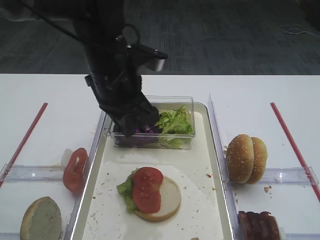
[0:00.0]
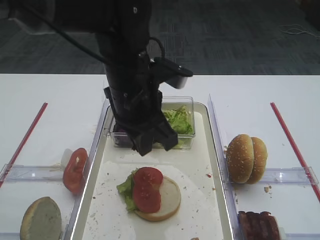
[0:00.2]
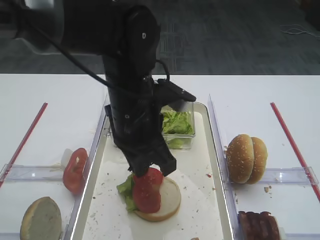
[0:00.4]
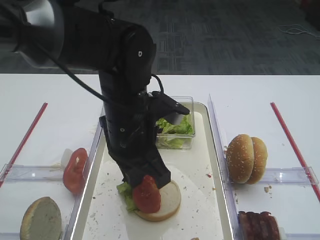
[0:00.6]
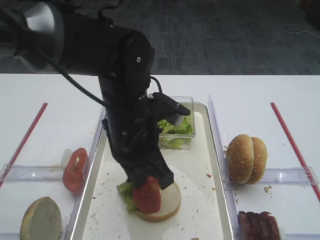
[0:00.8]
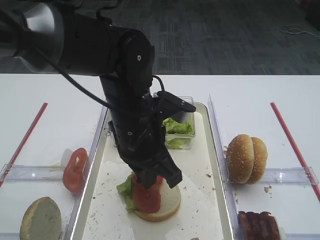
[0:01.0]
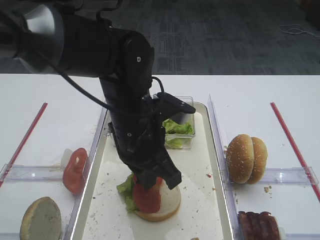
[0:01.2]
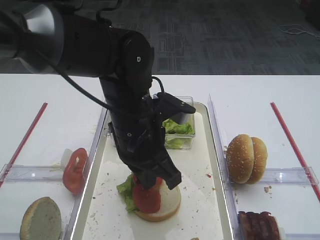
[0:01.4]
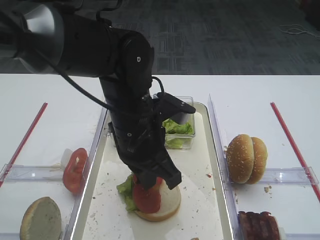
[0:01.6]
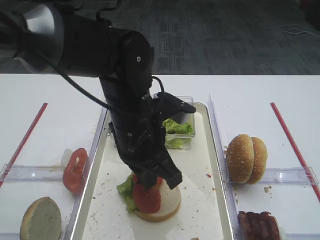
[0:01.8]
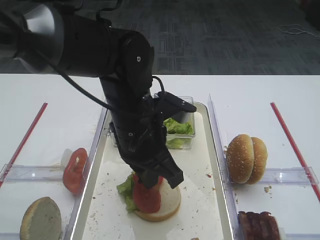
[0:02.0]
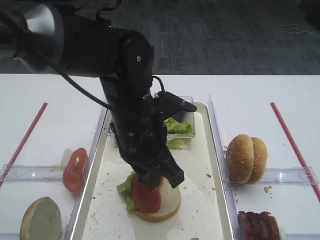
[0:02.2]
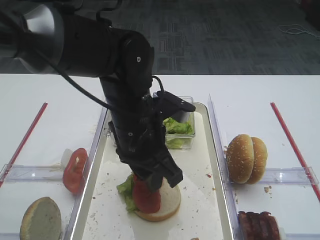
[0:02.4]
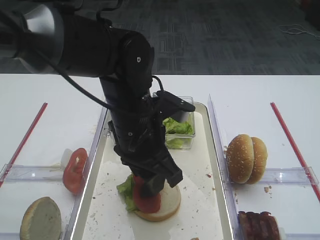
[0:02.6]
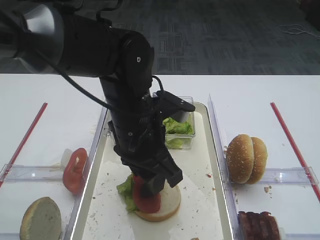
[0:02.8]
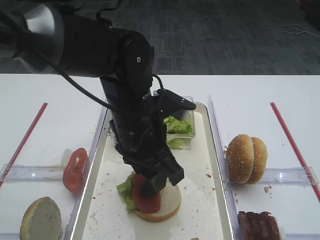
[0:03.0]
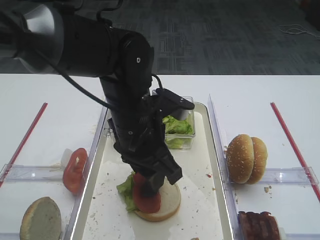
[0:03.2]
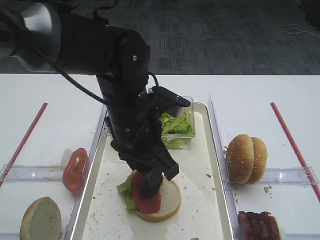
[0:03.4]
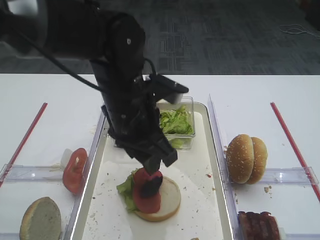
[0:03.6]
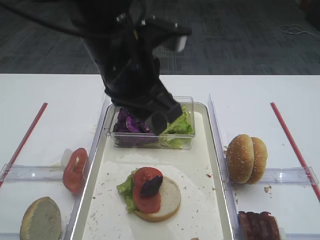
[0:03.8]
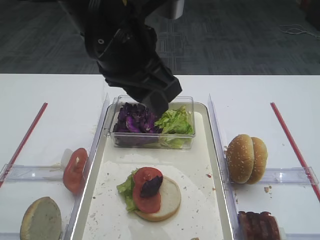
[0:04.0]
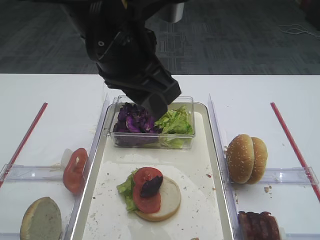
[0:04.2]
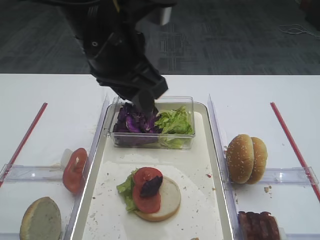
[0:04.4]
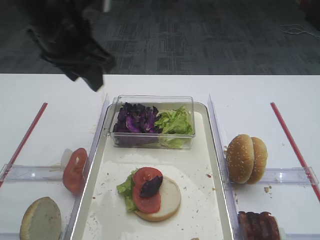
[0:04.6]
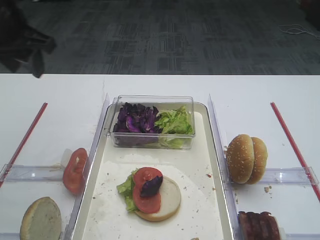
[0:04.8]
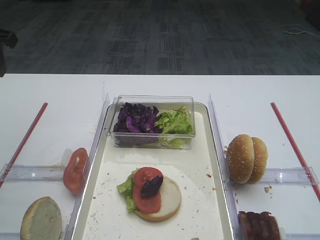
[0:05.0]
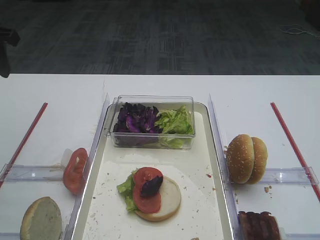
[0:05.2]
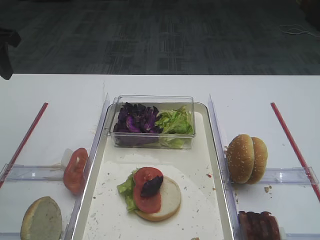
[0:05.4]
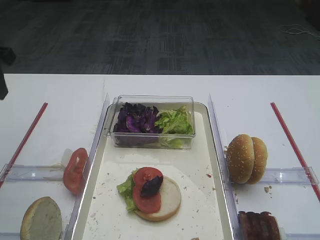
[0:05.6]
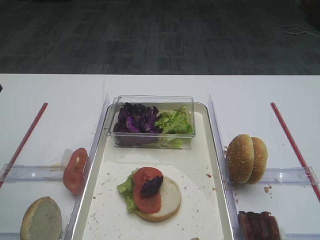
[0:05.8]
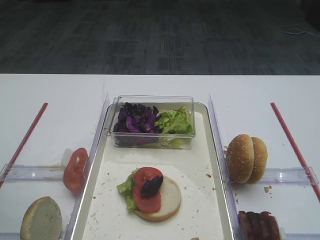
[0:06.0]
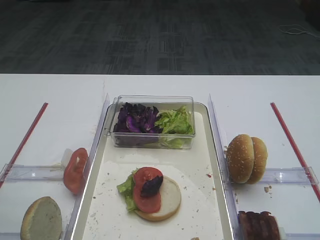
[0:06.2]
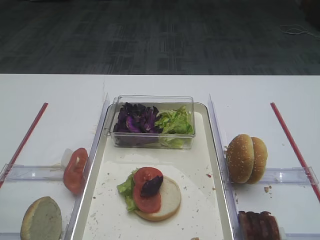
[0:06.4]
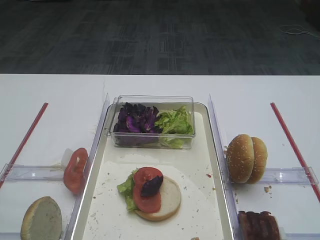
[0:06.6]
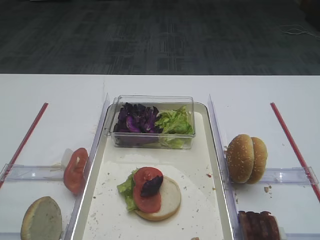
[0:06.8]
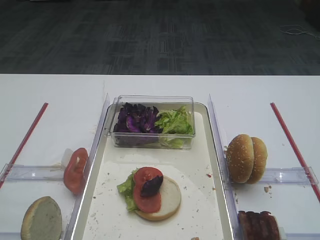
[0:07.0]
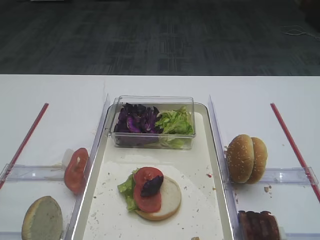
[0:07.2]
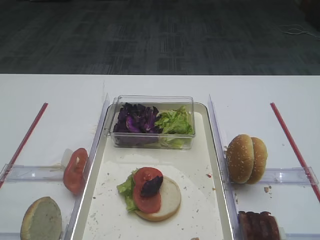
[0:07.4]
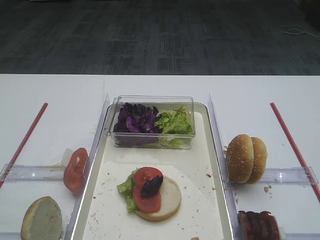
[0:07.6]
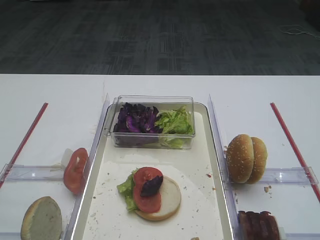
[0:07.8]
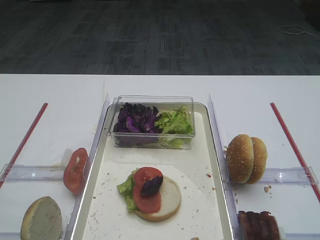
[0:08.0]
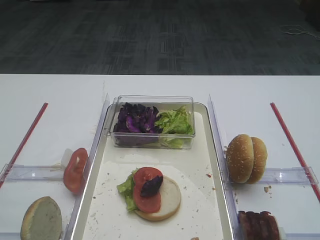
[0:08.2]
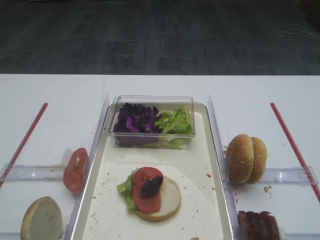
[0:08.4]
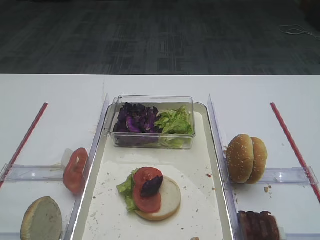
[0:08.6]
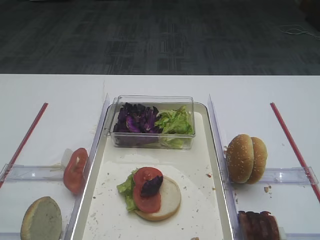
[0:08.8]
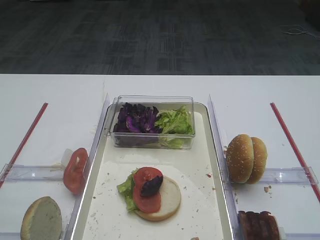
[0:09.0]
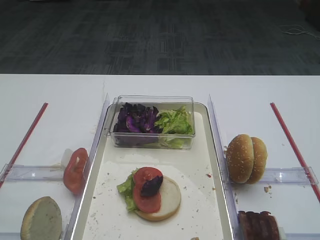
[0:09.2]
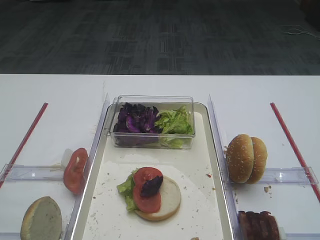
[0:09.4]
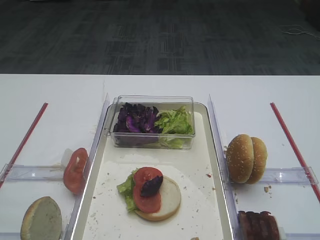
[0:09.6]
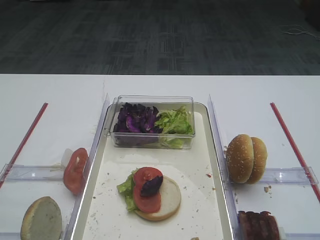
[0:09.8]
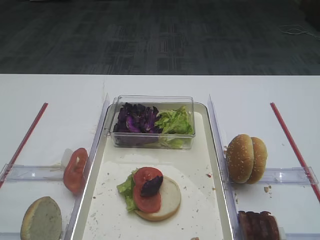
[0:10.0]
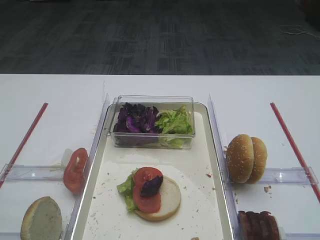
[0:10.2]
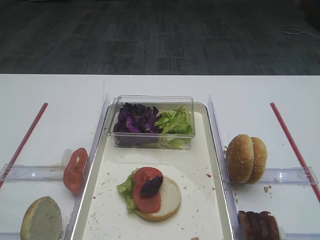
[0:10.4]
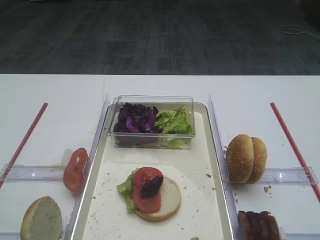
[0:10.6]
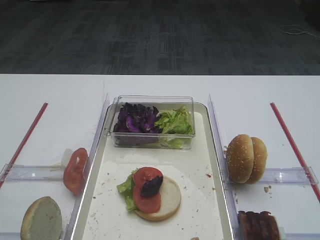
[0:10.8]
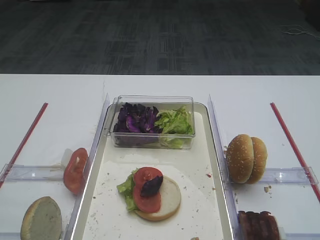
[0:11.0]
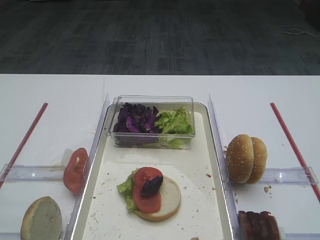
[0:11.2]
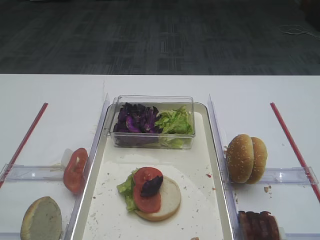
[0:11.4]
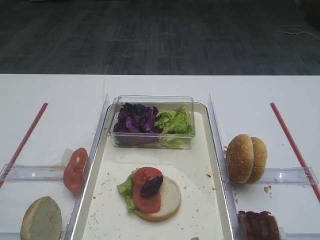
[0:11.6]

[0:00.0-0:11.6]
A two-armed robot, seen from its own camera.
Step, 0:00.0 to 0:03.6: Place the purple cabbage on the tomato slice with the left gripper.
0:00.0 to 0:01.4: The left gripper goes some 5 cm backward and downward.
0:01.4 to 0:02.8: The left gripper opens its fingers.
0:02.8 to 0:04.4: The left gripper goes about 10 cm upward.
0:04.4 to 0:05.8: The left gripper heads to the left, covering about 25 cm.
0:05.8 to 0:07.2: The left gripper goes some 30 cm backward.
0:07.2 to 0:11.6: Both grippers stay about where they are.

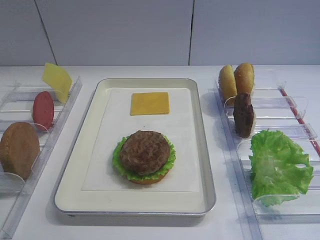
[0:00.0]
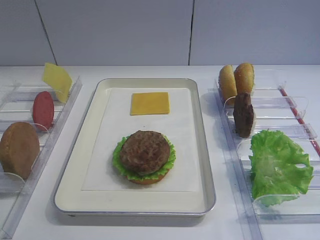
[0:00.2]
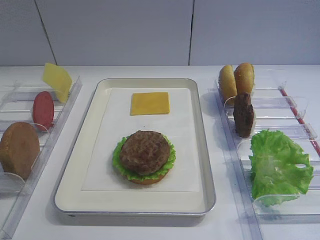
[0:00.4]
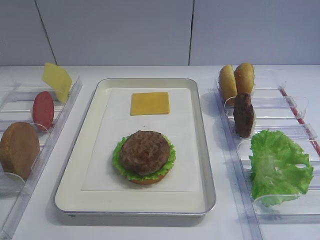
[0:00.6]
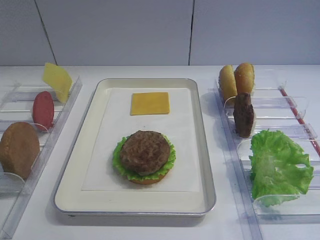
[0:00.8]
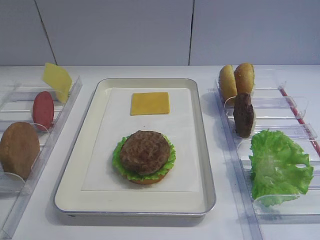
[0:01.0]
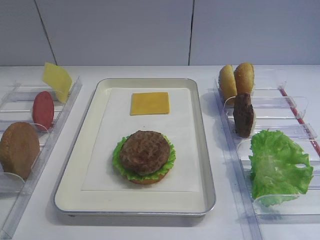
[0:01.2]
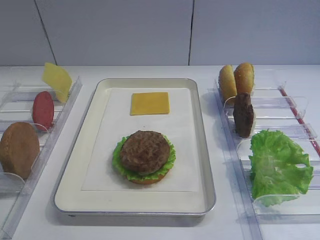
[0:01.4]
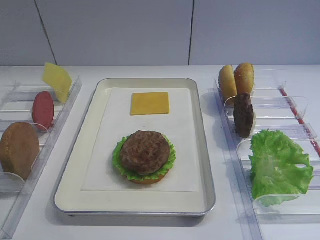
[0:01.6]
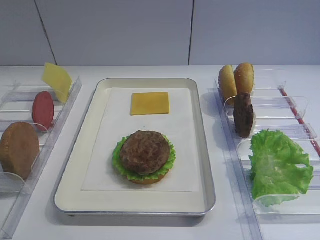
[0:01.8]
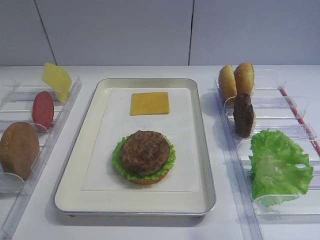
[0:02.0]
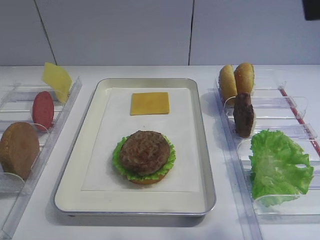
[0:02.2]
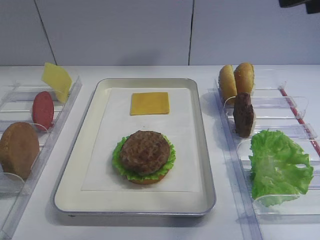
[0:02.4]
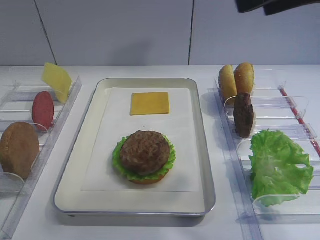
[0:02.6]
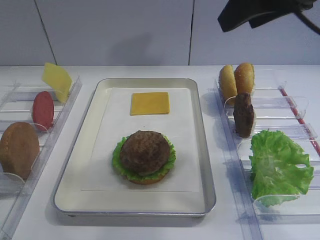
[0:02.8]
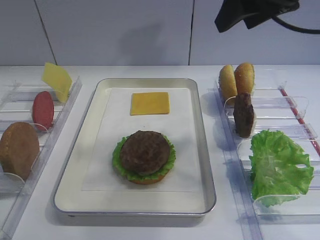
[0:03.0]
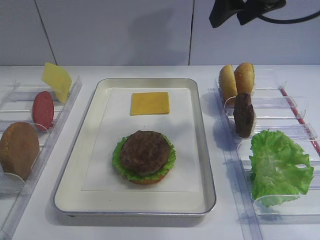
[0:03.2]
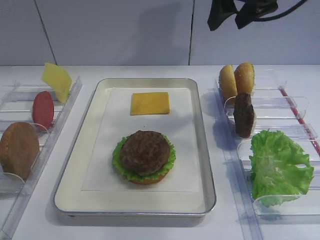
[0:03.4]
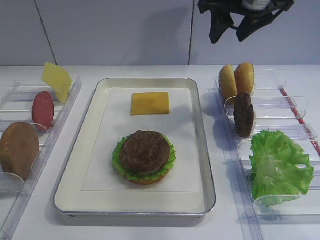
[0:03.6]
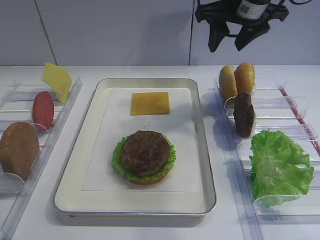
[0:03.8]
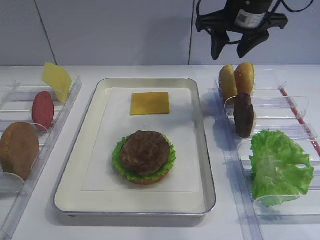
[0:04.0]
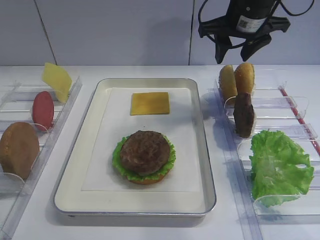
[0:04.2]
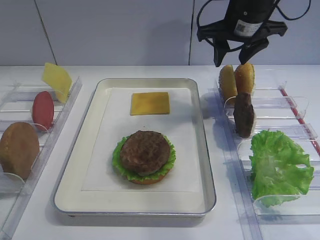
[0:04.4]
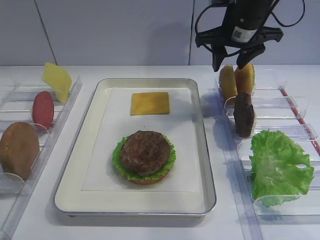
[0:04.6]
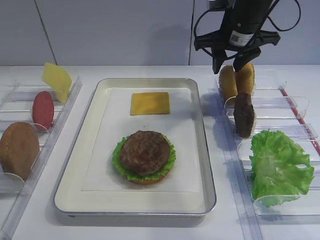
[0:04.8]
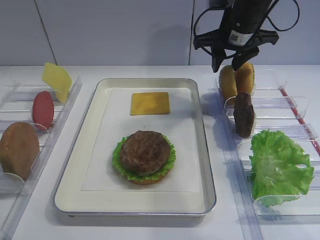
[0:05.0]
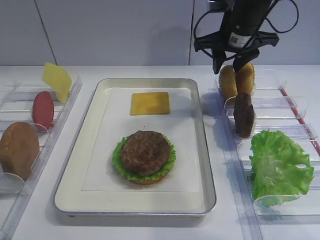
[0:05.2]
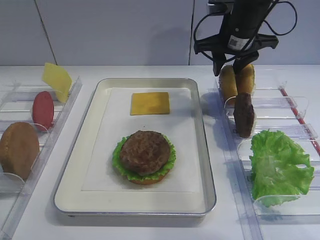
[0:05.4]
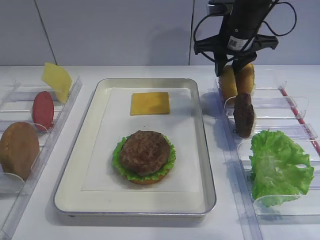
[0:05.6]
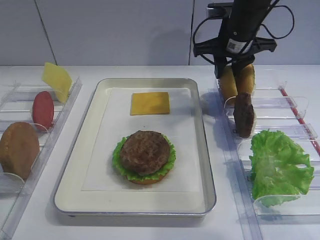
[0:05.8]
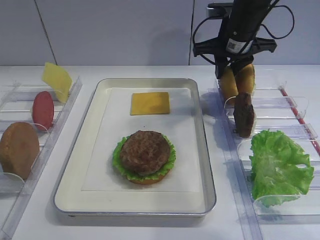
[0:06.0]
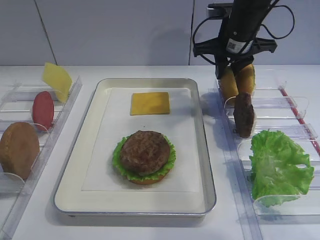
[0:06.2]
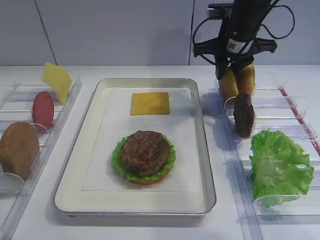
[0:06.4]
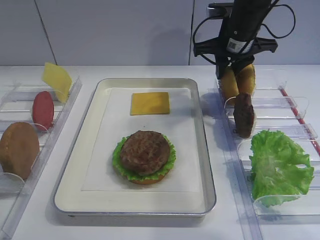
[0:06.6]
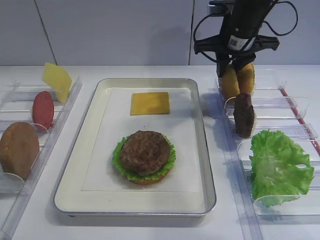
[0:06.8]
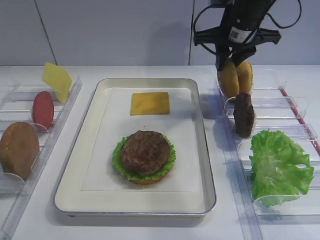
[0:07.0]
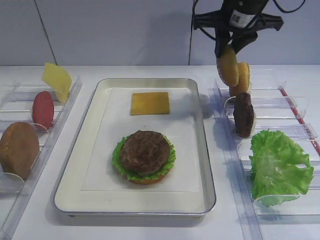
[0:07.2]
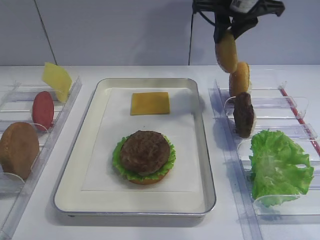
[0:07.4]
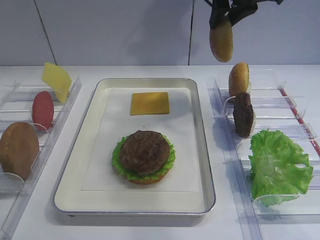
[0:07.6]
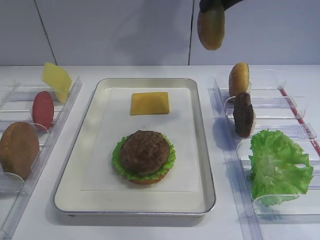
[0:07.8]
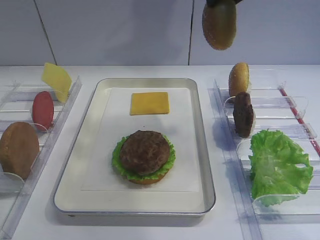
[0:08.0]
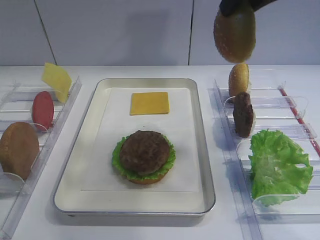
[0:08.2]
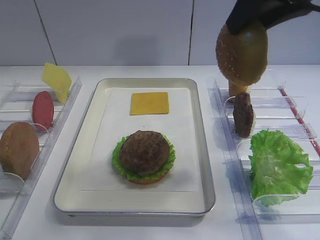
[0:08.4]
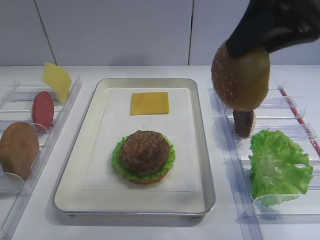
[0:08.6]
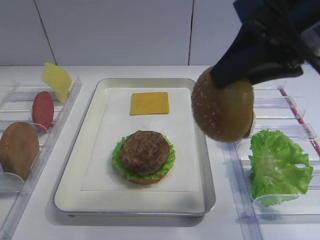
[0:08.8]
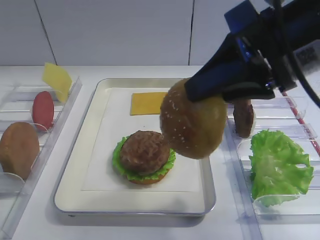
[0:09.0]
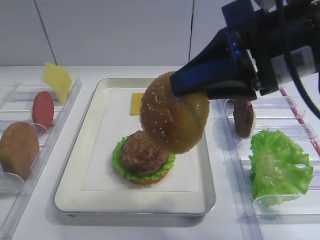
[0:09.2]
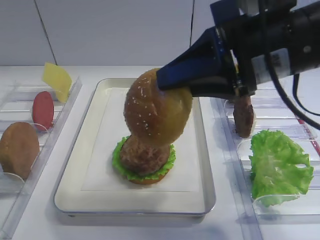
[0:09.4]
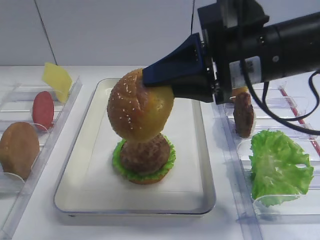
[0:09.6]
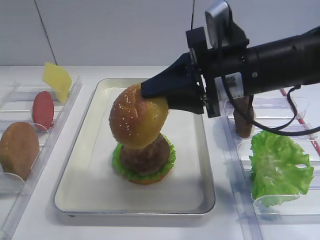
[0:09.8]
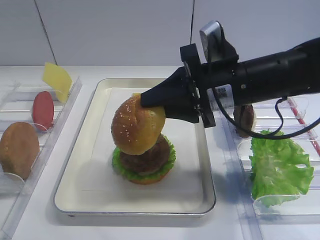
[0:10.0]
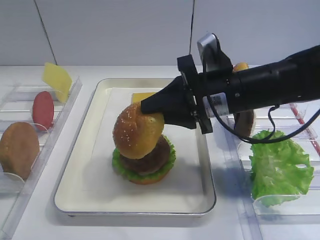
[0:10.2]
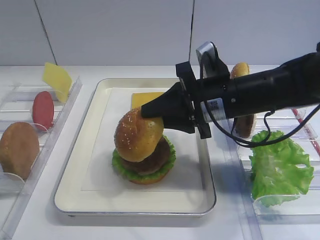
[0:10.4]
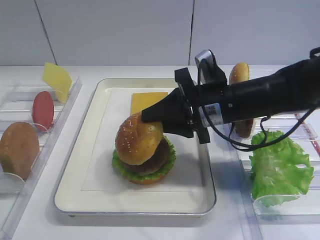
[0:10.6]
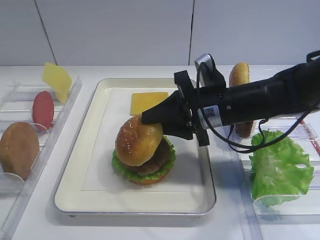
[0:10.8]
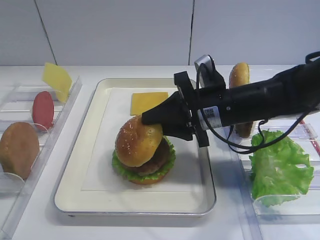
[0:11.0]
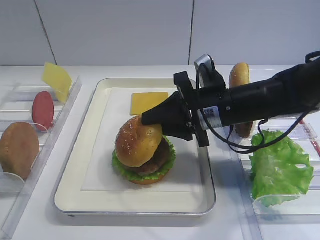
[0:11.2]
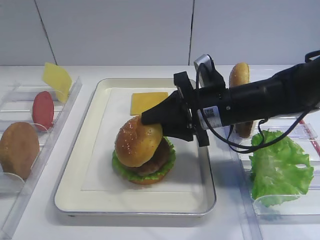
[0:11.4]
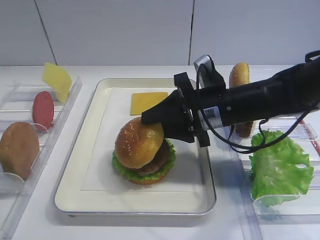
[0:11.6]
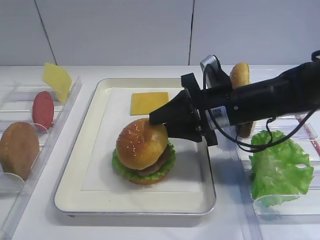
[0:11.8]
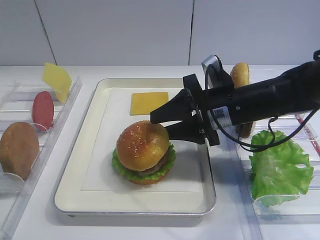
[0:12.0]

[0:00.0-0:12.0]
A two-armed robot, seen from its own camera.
Step, 0:00.0 to 0:07.4: Pick up the hamburger lid with the right gripper.
0:01.6 to 0:03.0: The right gripper heads forward, covering approximately 25 cm.
0:03.0 to 0:04.4: The right gripper is displaced forward and downward by about 15 cm.
0:04.4 to 0:06.0: The right gripper closes up.
0:06.0 to 0:07.6: The right gripper shifts about 10 cm upward.
0:07.6 to 0:09.0: The right gripper heads backward, covering about 20 cm.
0:09.0 to 0:10.4: The right gripper shifts about 15 cm downward and forward.
0:10.4 to 0:12.0: The right gripper opens.
